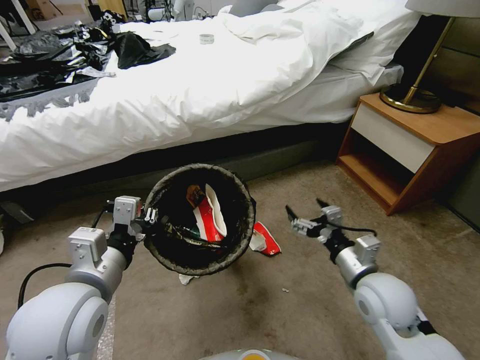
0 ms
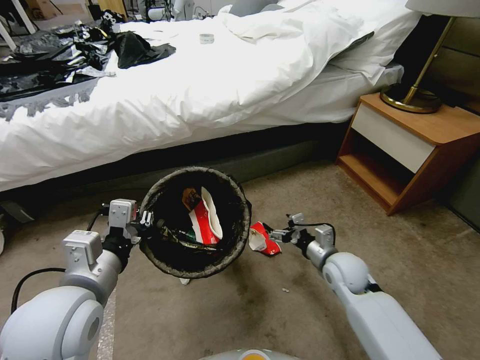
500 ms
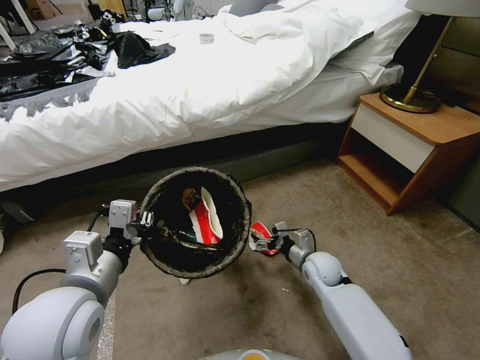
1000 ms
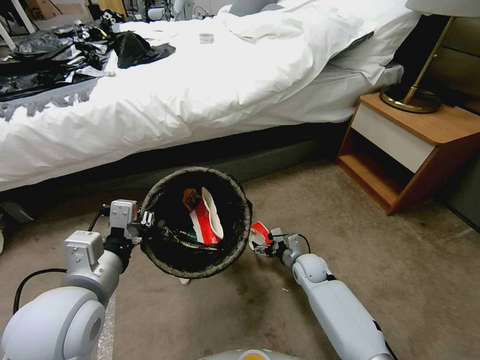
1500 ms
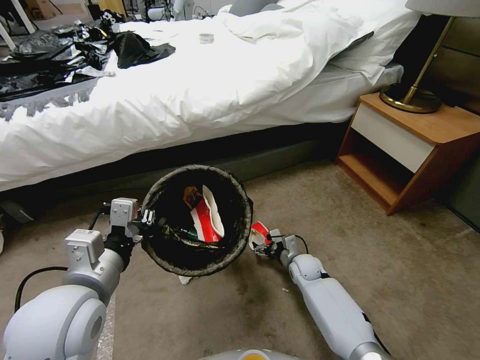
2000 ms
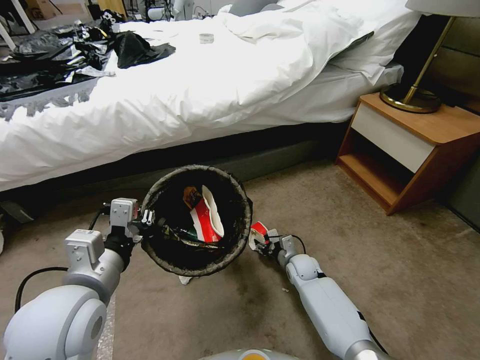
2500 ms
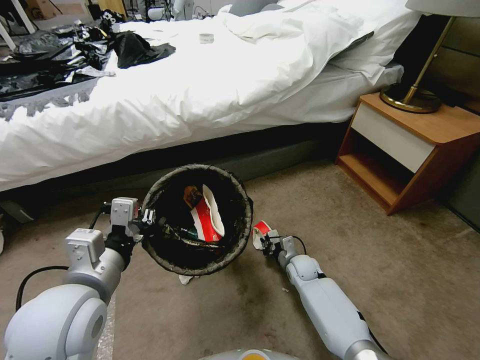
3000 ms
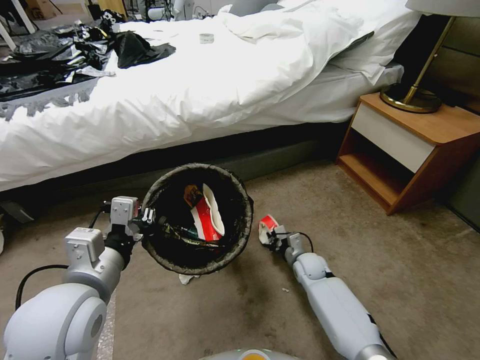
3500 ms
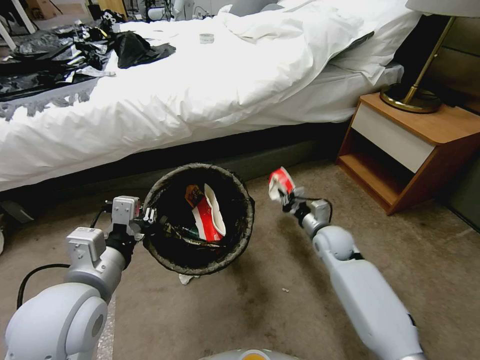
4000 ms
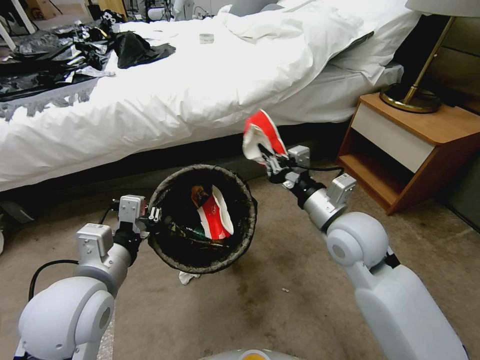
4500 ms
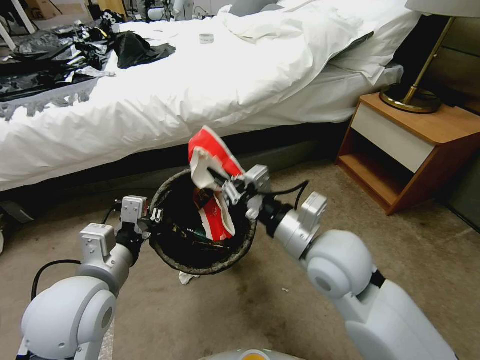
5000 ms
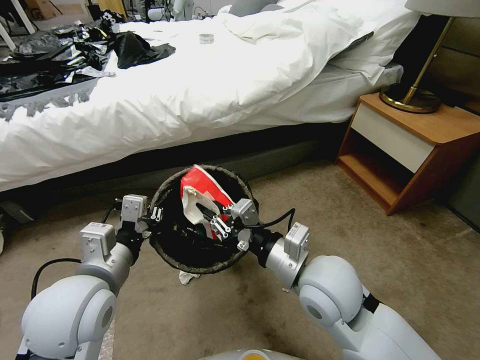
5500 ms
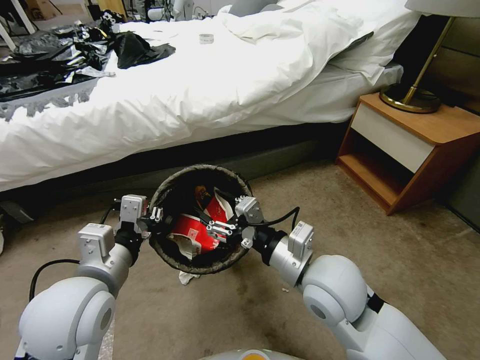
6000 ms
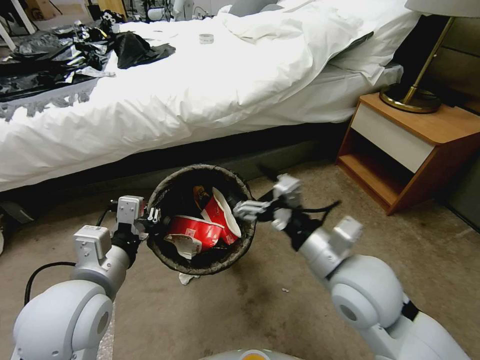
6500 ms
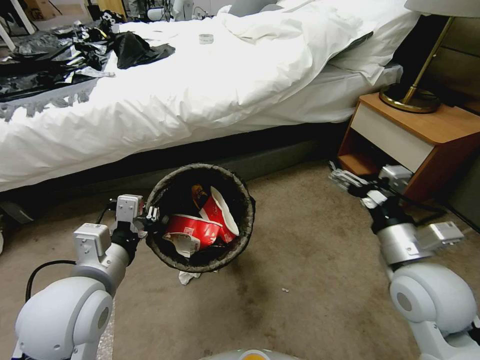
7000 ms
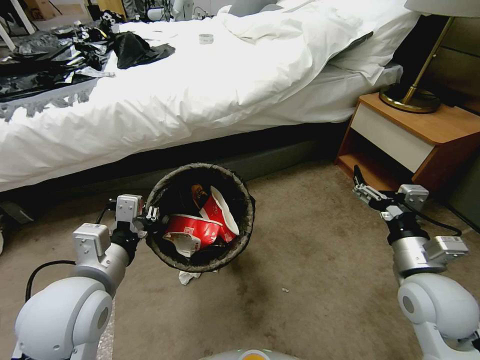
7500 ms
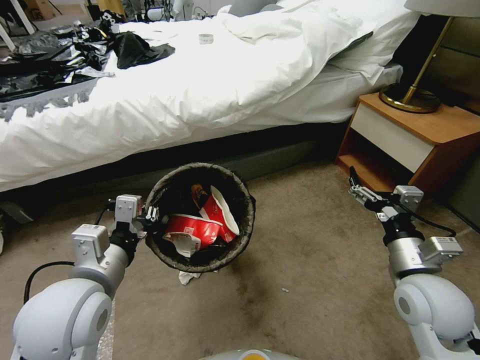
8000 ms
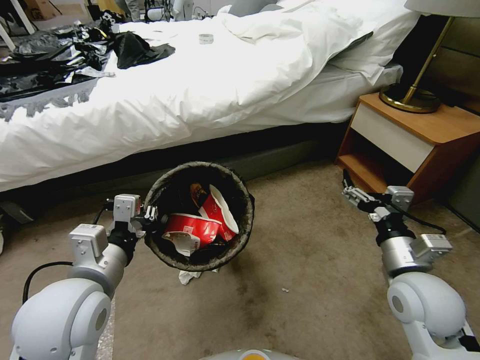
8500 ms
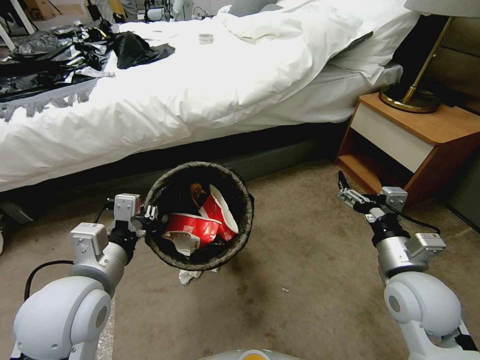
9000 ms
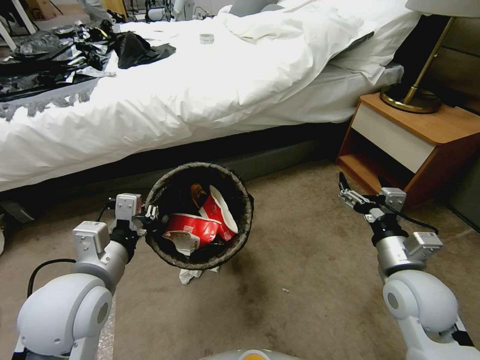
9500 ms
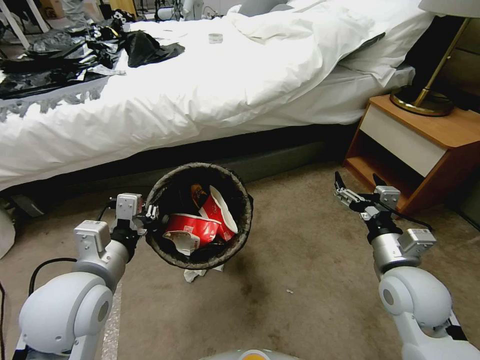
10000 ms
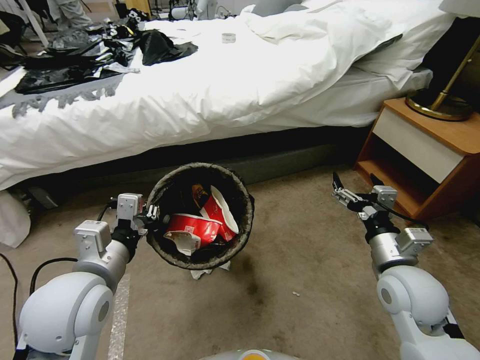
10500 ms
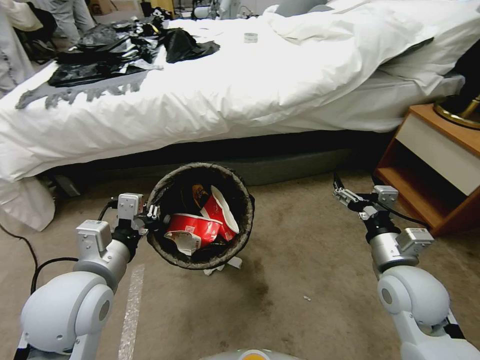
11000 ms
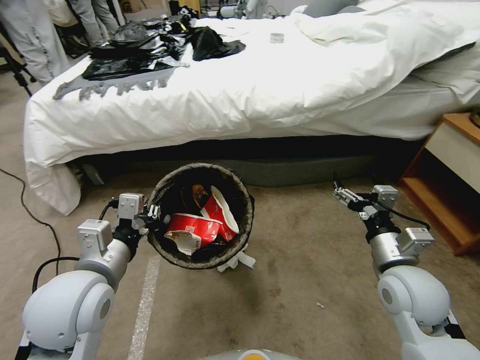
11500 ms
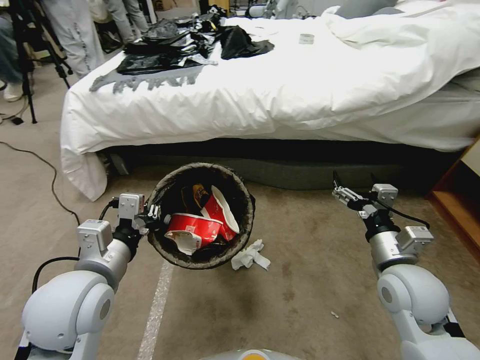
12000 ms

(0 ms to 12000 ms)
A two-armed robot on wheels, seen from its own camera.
Task of the whole recording: Pick up the trash bin, then pick up the garbage from the floor and place it into the trash bin.
0 ms - 2000 ms: The right gripper travels downward and forward by about 25 cm.
2000 ms - 4000 ms: The right gripper shifts about 15 cm upward, and closes.
4000 ms - 6000 ms: The right gripper goes about 25 cm backward, upward and to the left, and opens up.
6000 ms - 8000 ms: The right gripper heads to the right, covering roughly 15 cm.

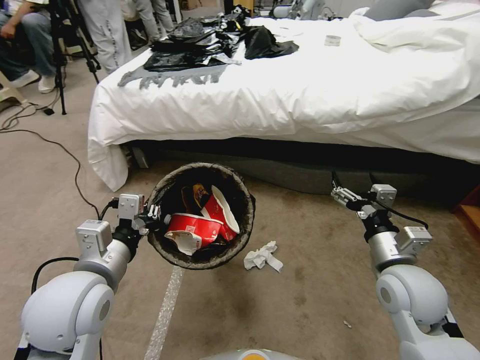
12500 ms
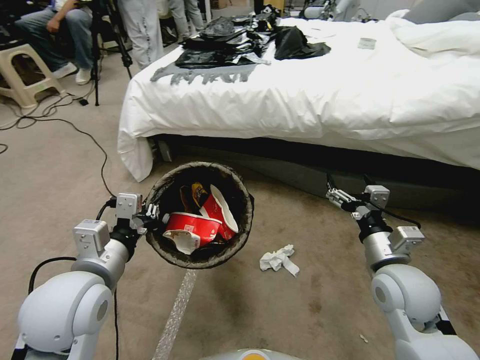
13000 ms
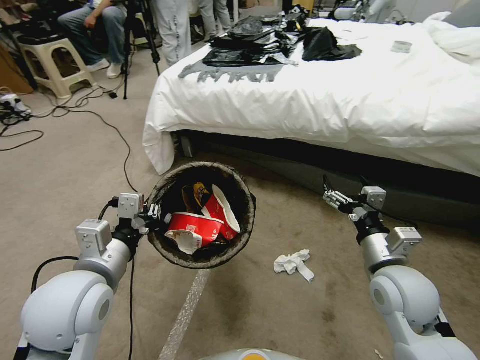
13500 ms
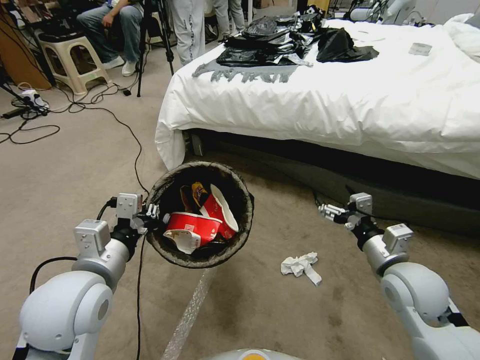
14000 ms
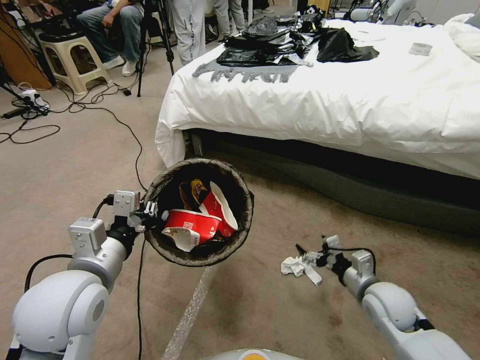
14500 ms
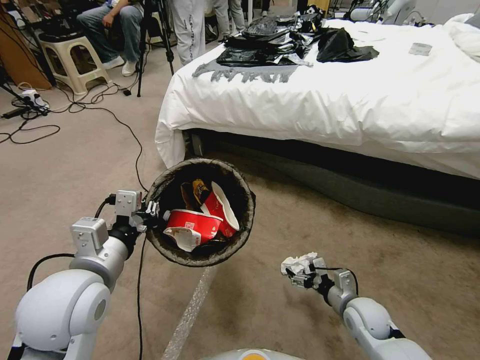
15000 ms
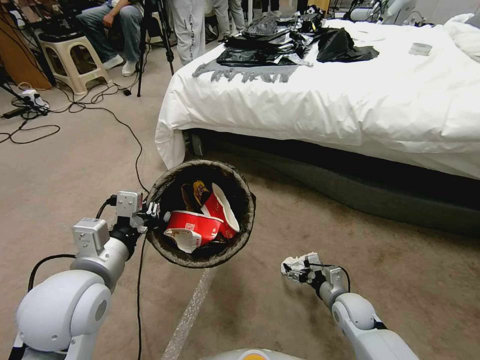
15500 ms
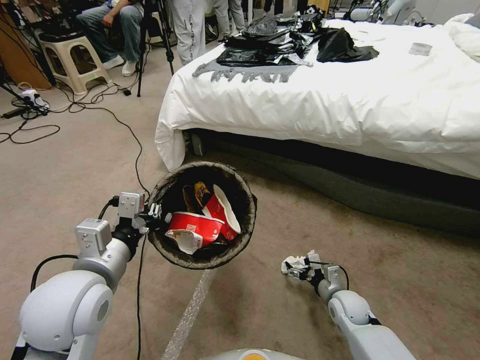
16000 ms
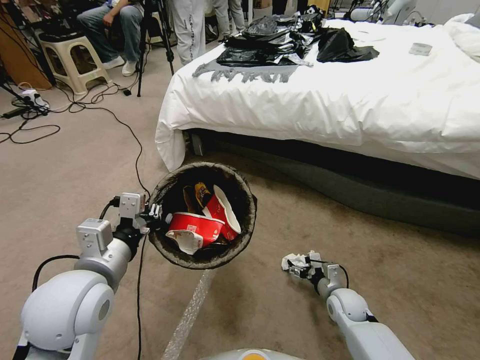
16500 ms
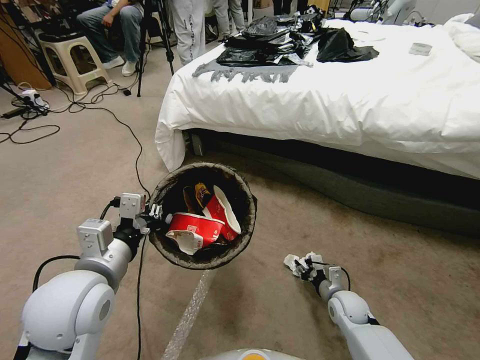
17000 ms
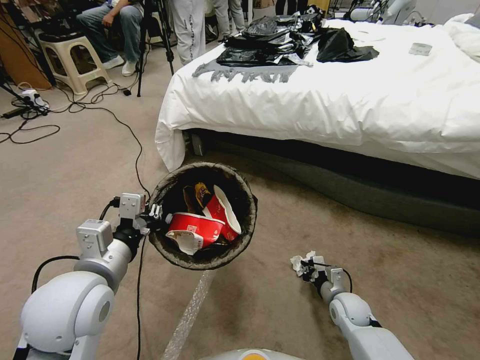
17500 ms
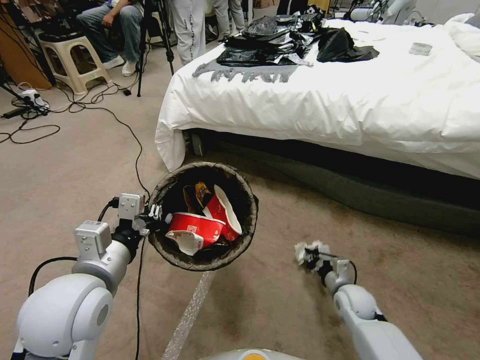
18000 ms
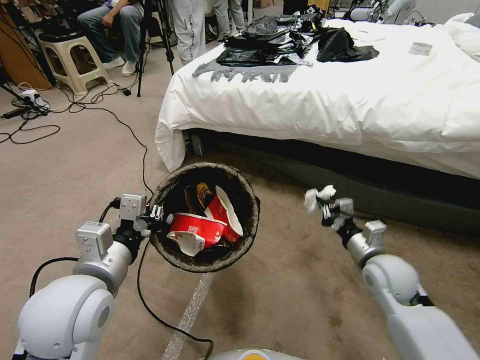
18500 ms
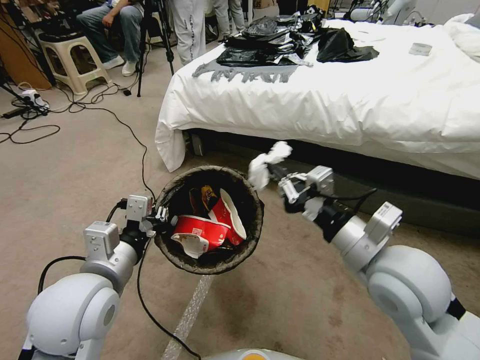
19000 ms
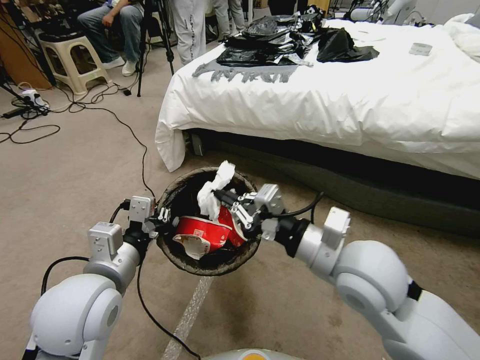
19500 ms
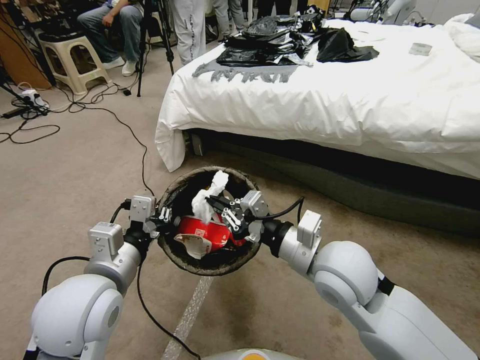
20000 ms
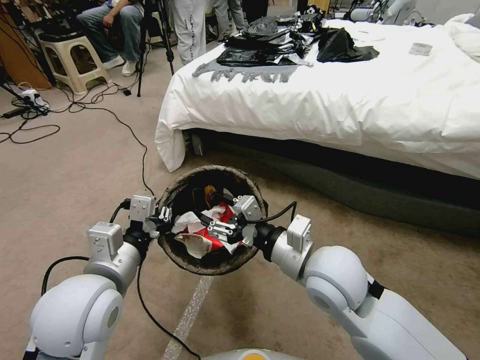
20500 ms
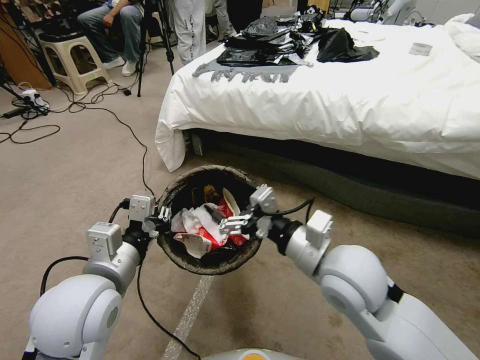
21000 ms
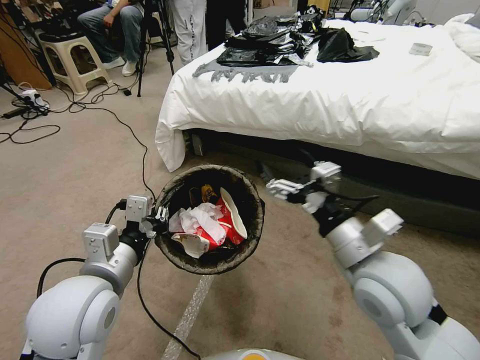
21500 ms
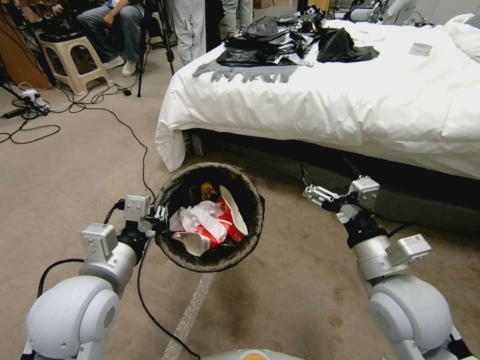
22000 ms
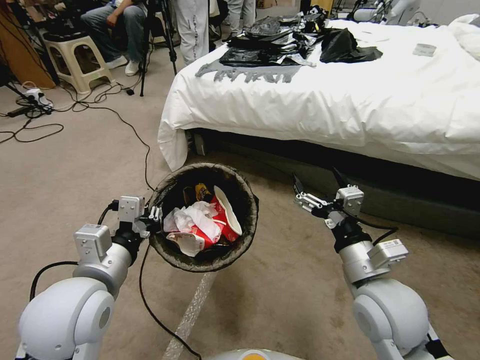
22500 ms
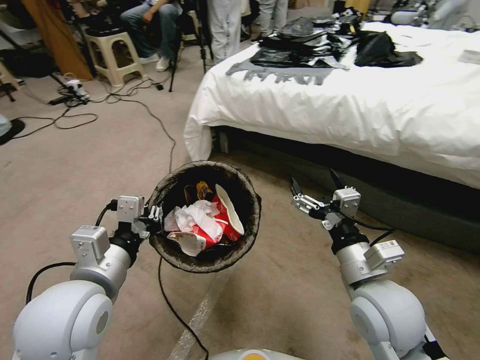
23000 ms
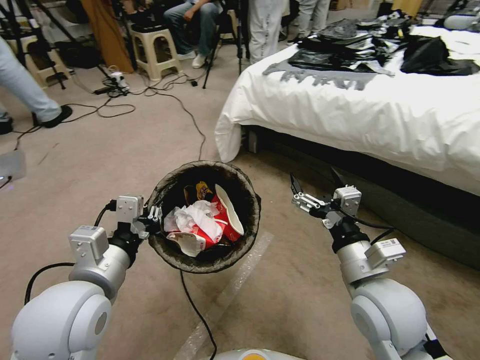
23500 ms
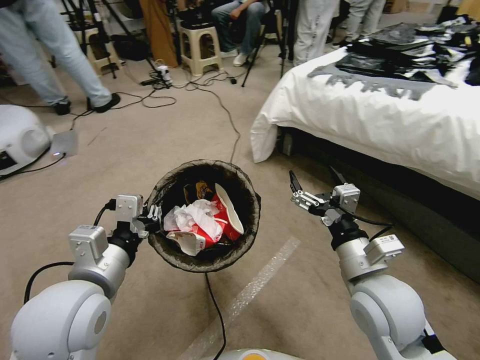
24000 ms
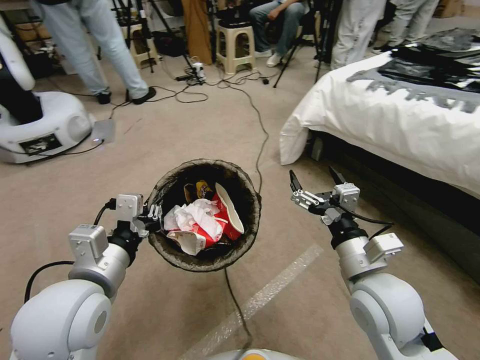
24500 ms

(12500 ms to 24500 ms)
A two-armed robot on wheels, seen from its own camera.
Task of the whole recording: Pick up the trash bin, then pick up the garbage from the floor and place it into the trash bin.
12500 ms - 14500 ms: The right gripper goes about 15 cm downward.
14500 ms - 16500 ms: The right gripper shifts some 15 cm downward.
16500 ms - 18500 ms: The right gripper is displaced upward by roughly 20 cm, and closes its fingers.
18500 ms - 20500 ms: The right gripper travels to the left and upward by approximately 20 cm, and opens up.
20500 ms - 22500 ms: The right gripper heads to the right, covering roughly 10 cm, and opens up.

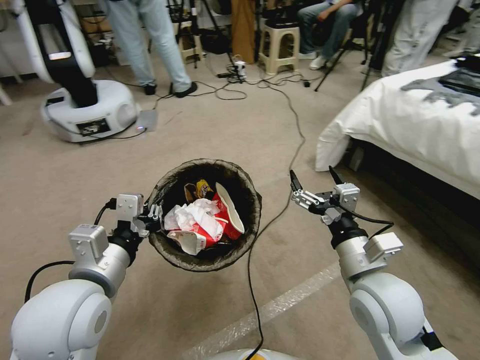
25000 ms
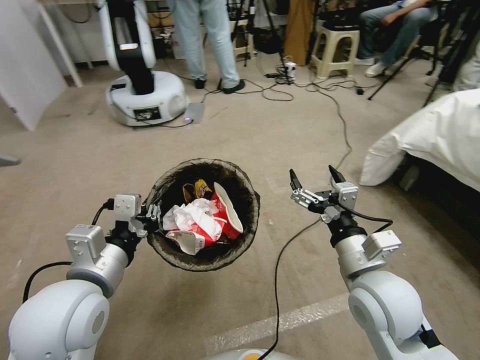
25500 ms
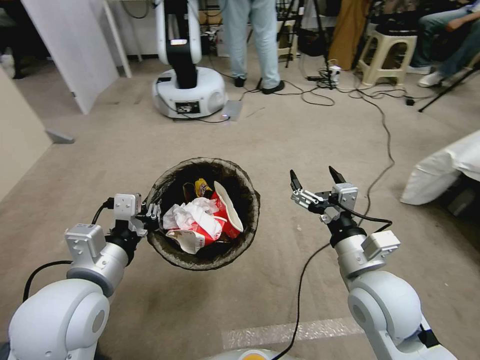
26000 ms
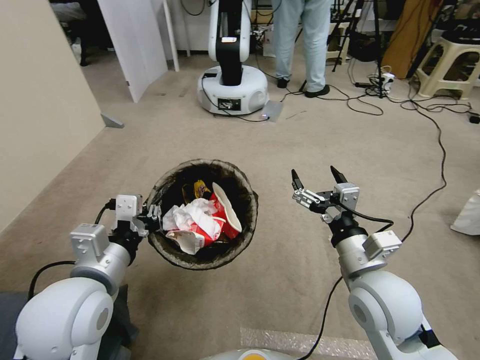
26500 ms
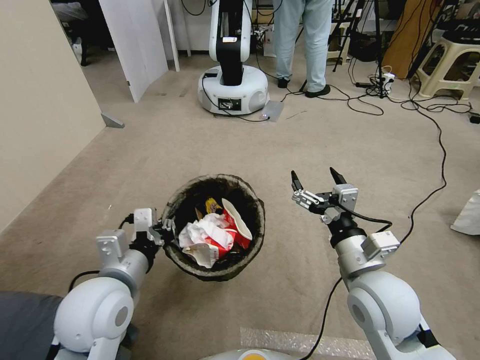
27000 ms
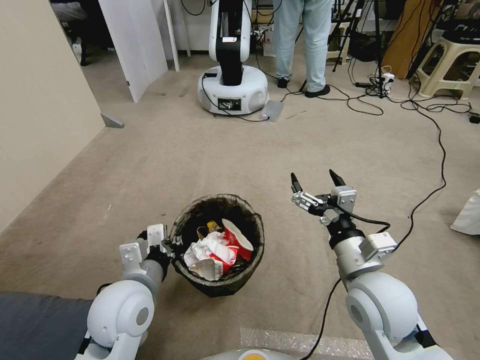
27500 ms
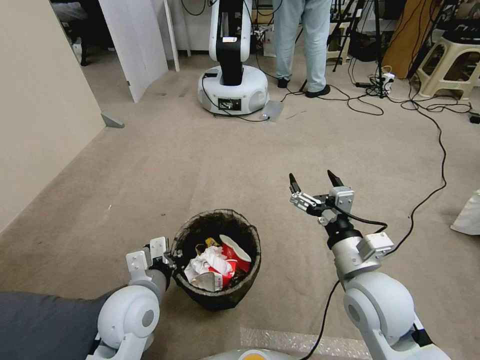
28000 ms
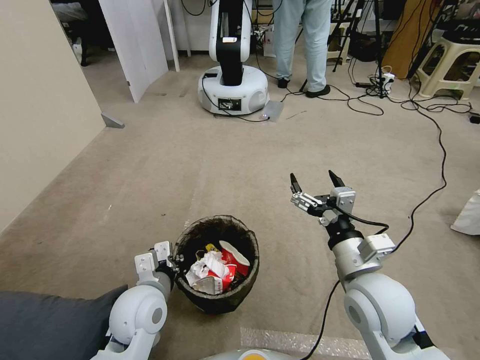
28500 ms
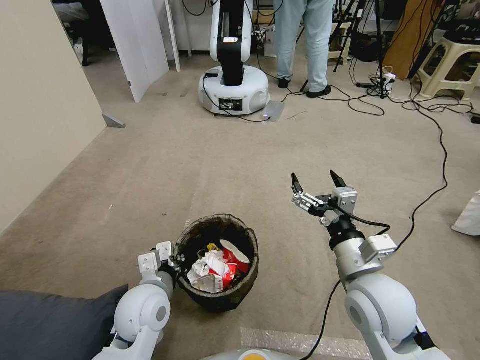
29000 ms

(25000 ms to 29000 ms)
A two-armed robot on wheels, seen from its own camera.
Task of the whole recording: Pick up the trash bin, then pick up the garbage from the floor and place it into the trash bin.
25000 ms - 27000 ms: The left gripper shifts by some 5 cm.
27000 ms - 29000 ms: The left gripper moves downward, some 10 cm.
